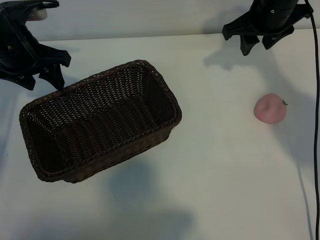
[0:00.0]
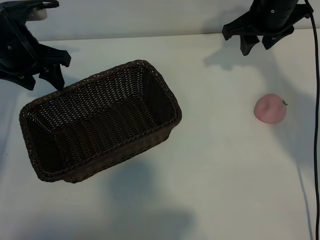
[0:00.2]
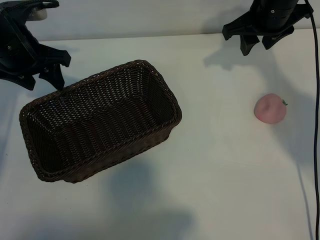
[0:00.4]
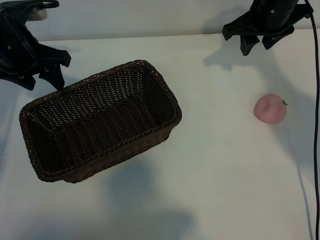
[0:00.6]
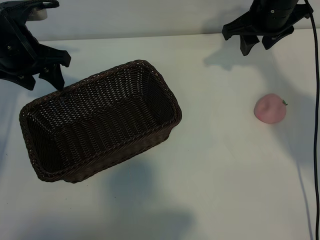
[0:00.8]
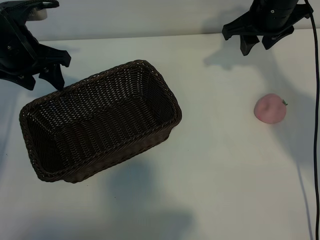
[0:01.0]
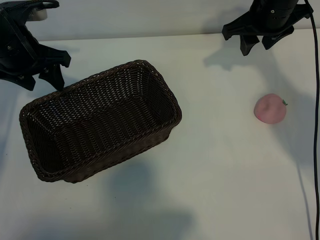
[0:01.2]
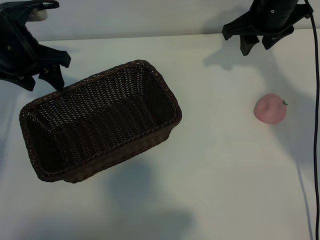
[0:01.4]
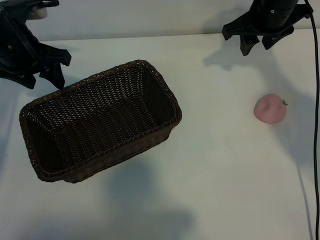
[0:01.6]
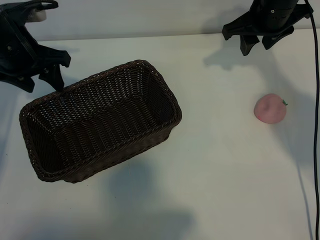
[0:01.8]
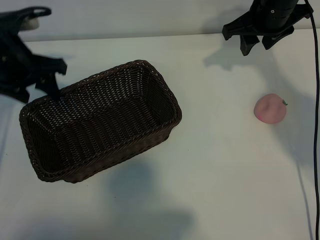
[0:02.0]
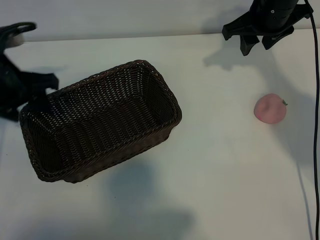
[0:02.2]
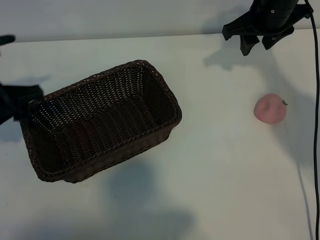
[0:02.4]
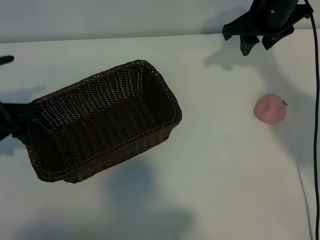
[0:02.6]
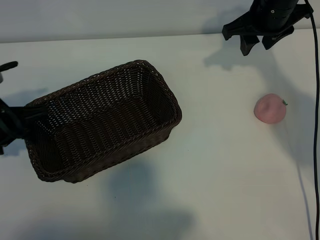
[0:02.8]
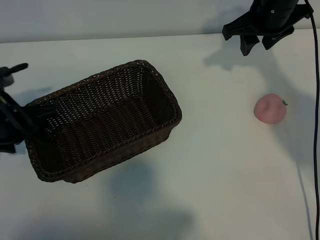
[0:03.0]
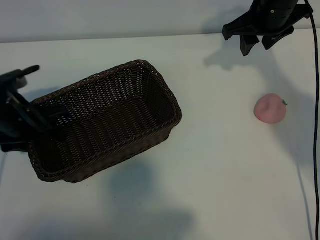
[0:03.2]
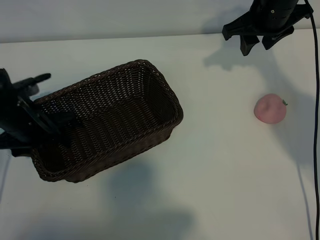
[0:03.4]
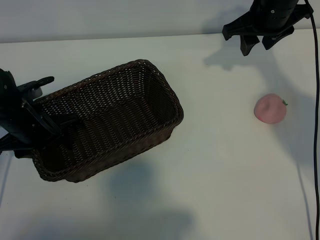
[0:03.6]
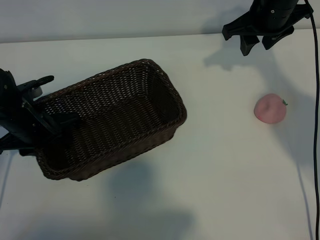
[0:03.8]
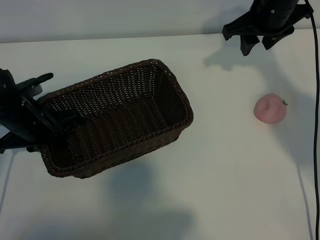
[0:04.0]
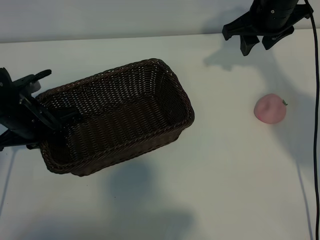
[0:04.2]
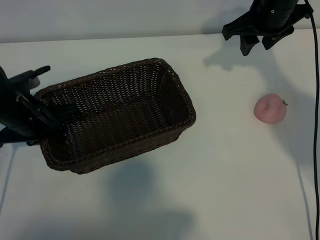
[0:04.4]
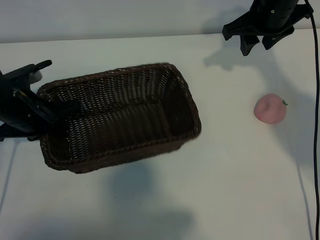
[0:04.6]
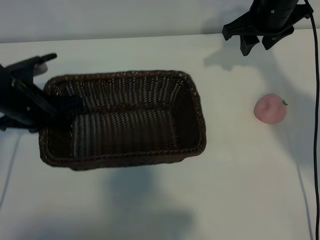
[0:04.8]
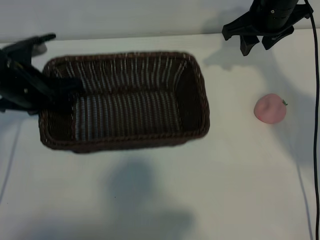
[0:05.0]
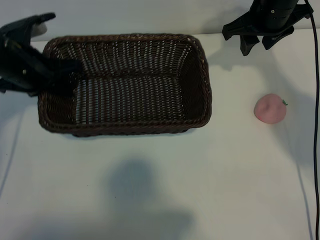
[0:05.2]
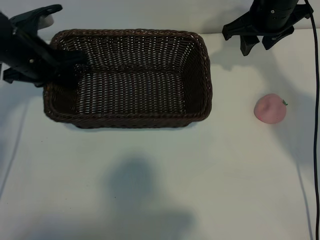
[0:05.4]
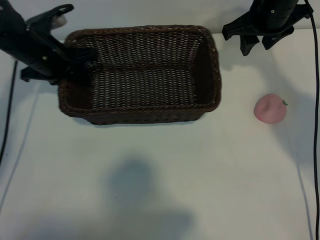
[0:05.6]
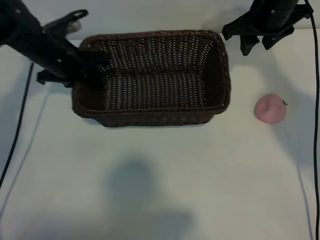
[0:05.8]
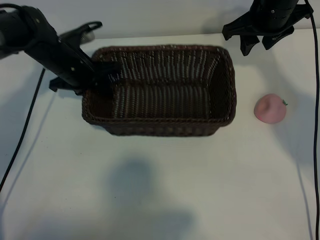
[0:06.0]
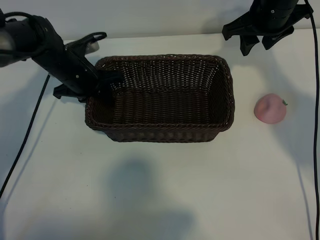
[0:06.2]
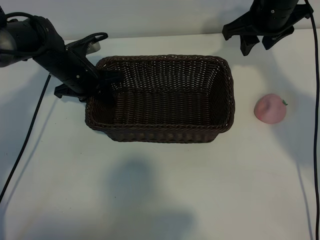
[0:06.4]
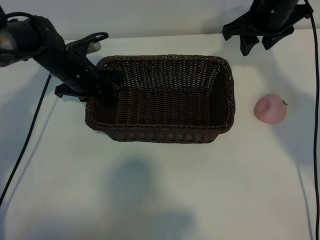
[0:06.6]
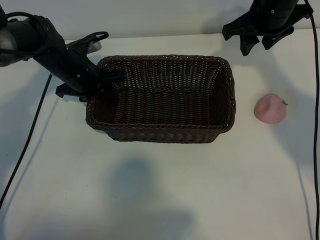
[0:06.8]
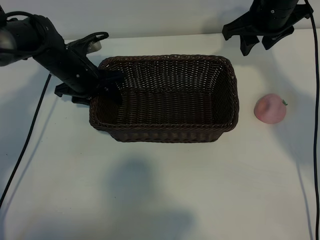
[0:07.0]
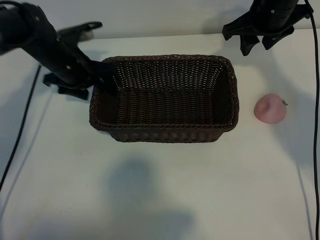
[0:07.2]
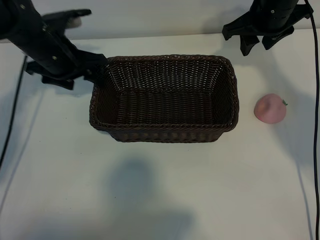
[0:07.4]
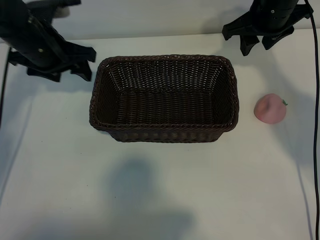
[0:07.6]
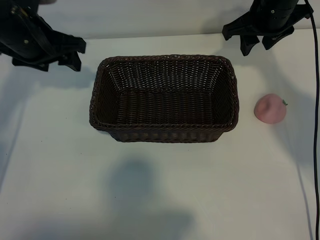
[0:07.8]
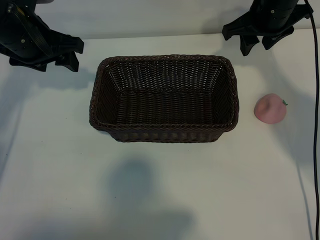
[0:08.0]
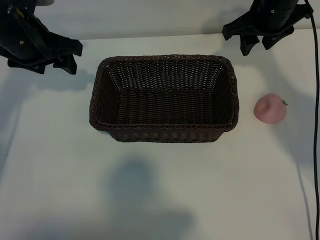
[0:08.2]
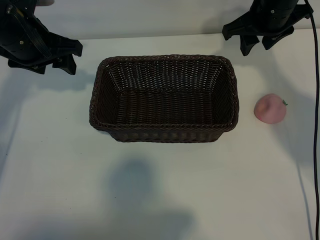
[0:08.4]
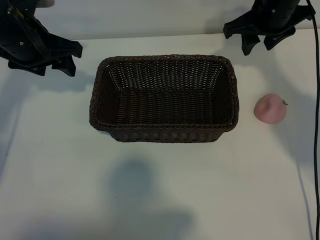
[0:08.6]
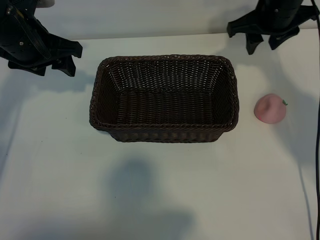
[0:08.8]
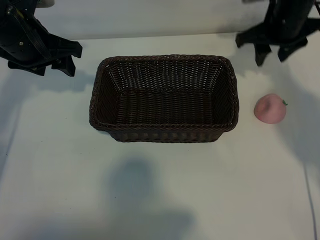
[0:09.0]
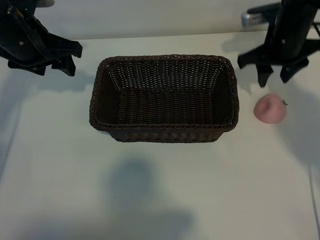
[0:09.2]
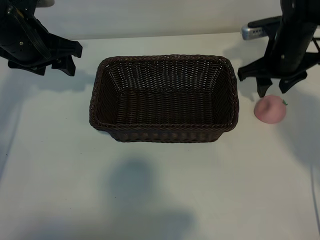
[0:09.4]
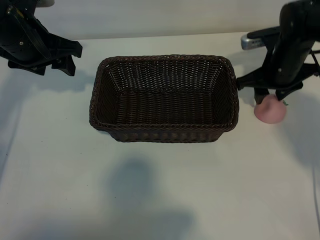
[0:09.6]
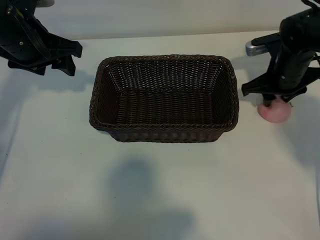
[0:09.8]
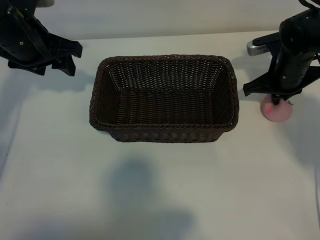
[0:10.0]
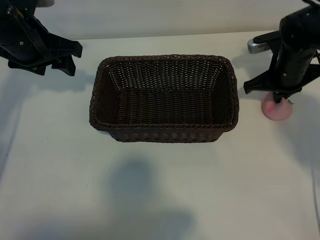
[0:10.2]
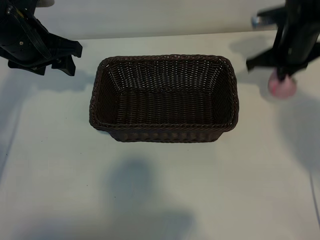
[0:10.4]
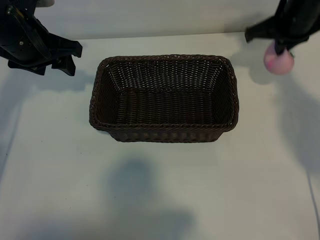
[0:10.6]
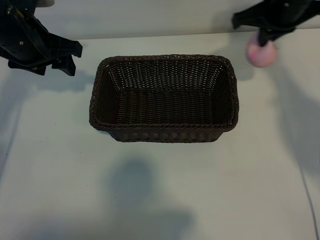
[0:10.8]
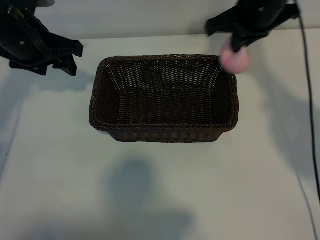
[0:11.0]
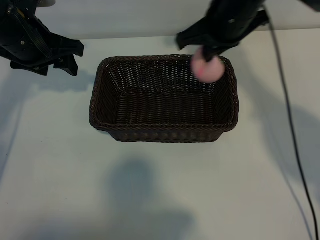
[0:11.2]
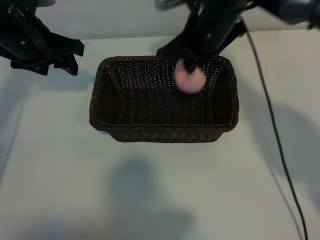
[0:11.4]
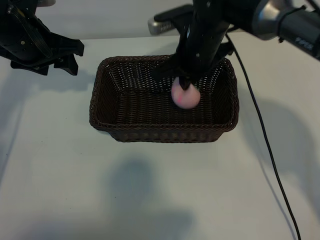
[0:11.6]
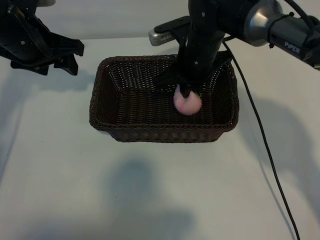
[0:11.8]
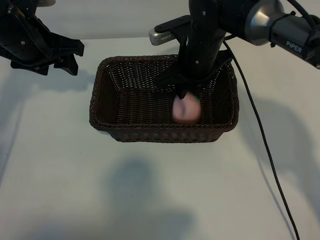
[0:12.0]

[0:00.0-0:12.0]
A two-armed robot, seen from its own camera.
Task of the whole recording: pick up the peach and put it into the basket.
Step, 0:01.6 to 0:04.0: Grasp the basket with left gripper.
Step, 0:04.2 to 0:07.0: Place the basket in the center of view with left gripper.
Step, 0:07.4 to 0:10.0: Grasp the peach with right gripper.
Step, 0:10.2 to 0:12.0: Place the peach in the basket with right gripper.
